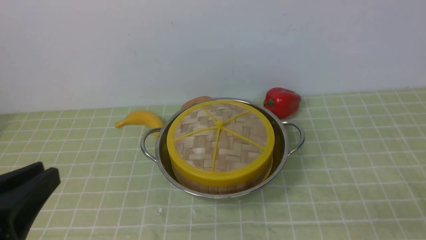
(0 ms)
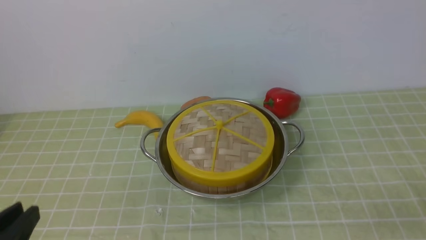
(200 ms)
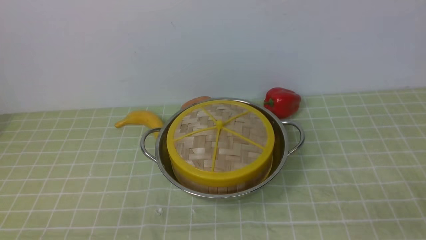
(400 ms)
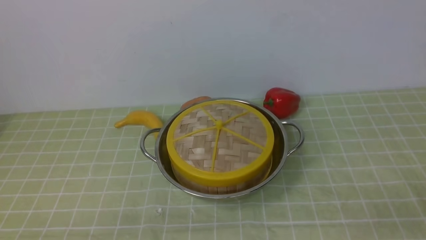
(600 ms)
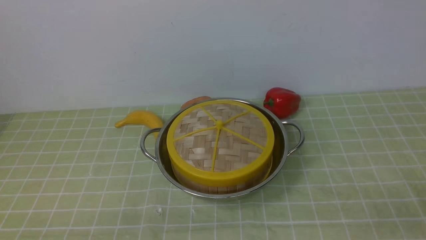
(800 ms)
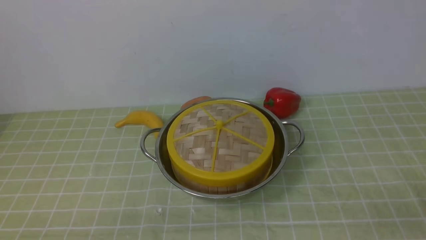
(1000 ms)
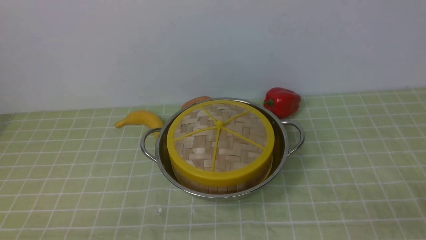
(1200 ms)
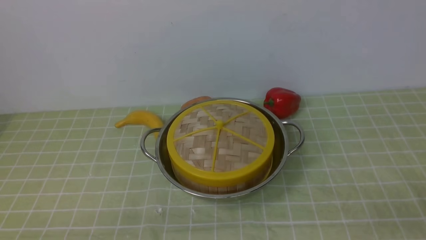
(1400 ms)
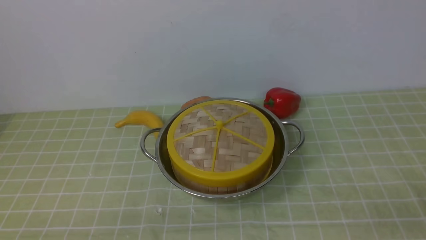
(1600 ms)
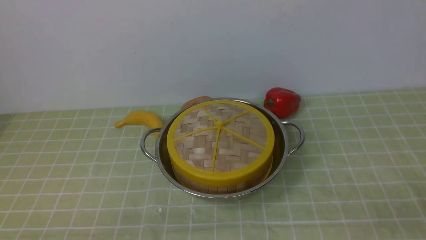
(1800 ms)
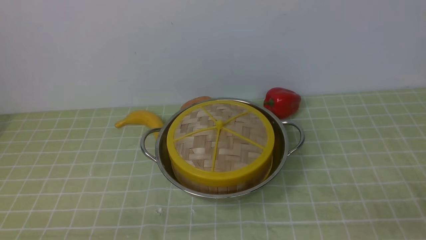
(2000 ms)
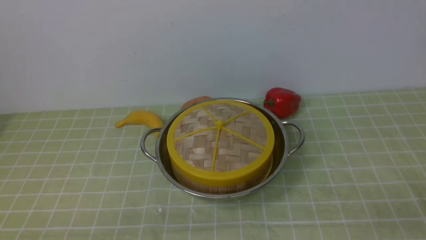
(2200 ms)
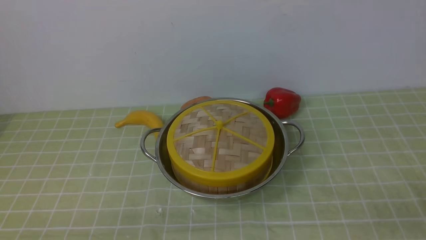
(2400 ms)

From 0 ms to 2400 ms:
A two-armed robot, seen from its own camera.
Task of the whole recording: place the steamer in the pot on the green tablecloth, and put the lid on the steamer.
From 0 ms to 1200 ms: The left gripper is displaced downward by some 10 cm.
From 1200 ms to 2400 ms: The two grippers keep their place.
